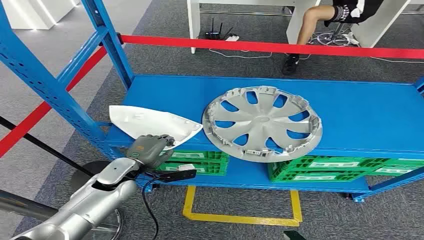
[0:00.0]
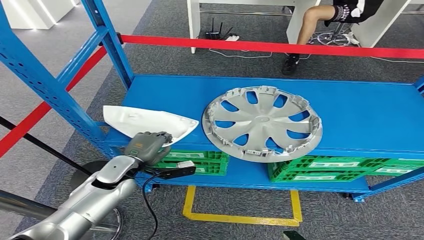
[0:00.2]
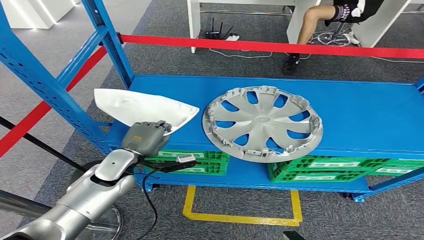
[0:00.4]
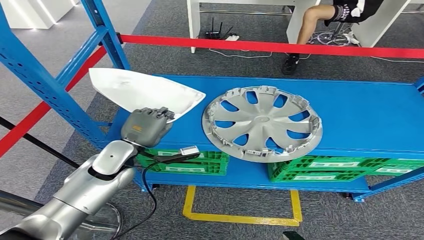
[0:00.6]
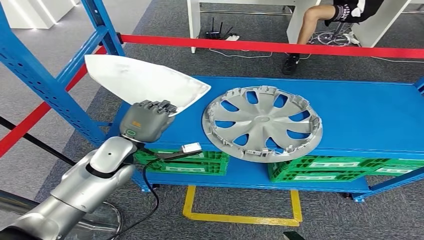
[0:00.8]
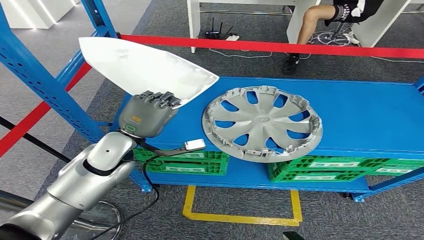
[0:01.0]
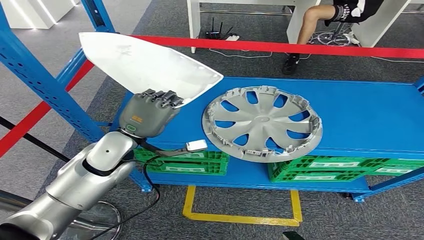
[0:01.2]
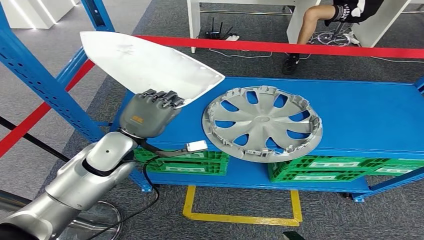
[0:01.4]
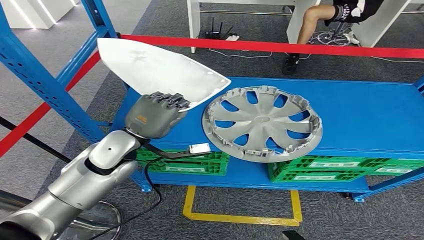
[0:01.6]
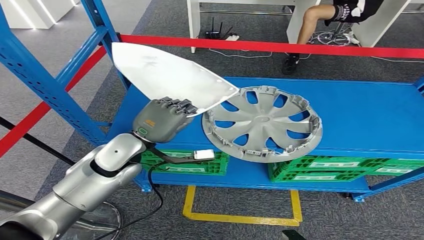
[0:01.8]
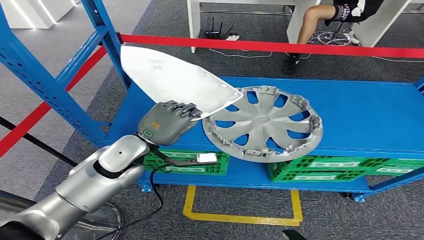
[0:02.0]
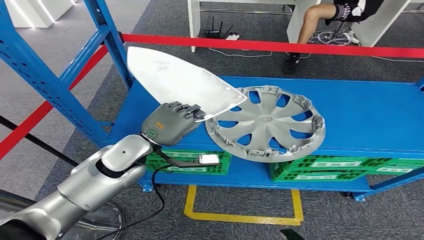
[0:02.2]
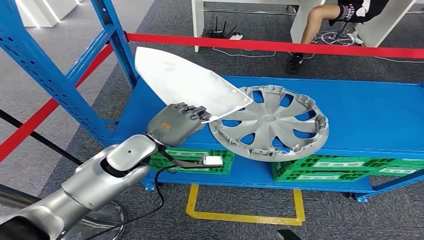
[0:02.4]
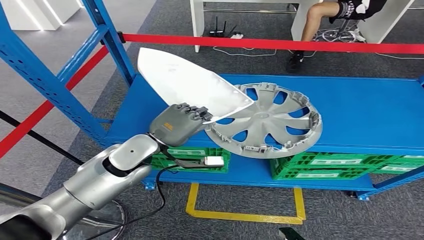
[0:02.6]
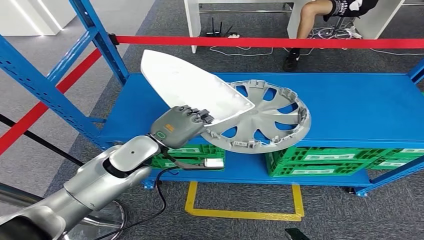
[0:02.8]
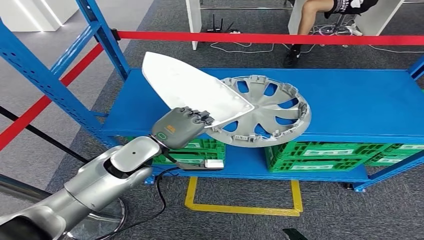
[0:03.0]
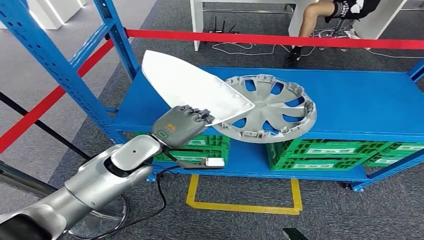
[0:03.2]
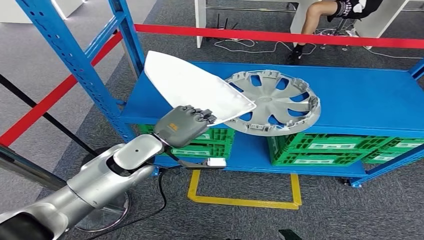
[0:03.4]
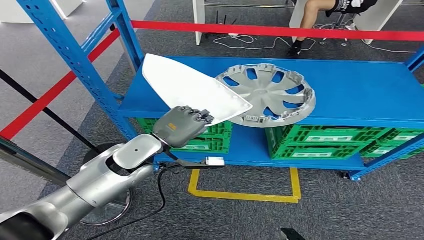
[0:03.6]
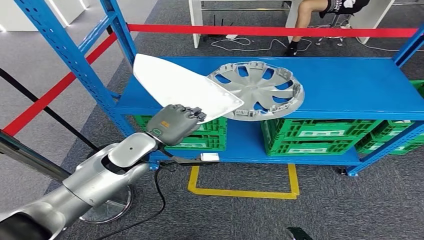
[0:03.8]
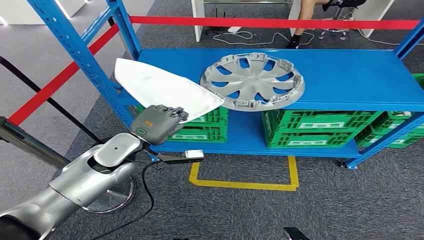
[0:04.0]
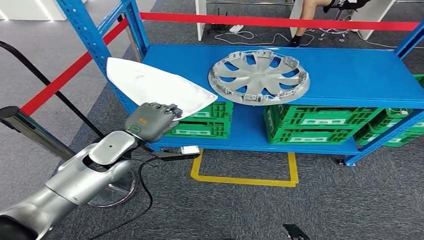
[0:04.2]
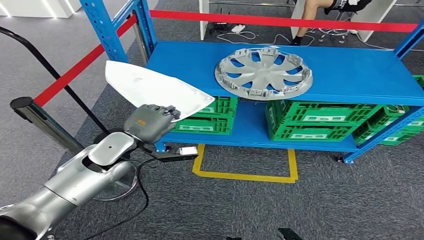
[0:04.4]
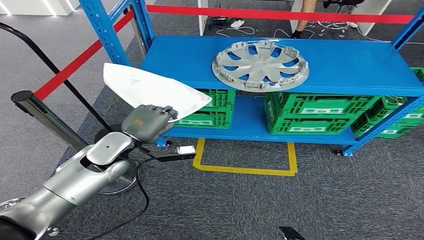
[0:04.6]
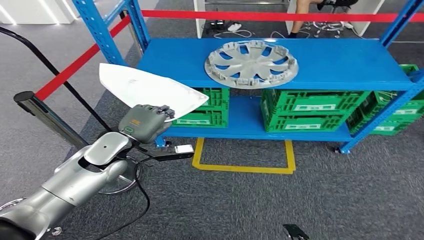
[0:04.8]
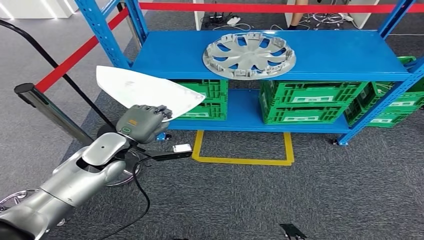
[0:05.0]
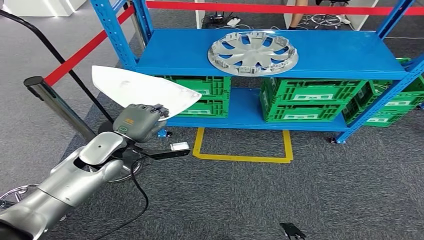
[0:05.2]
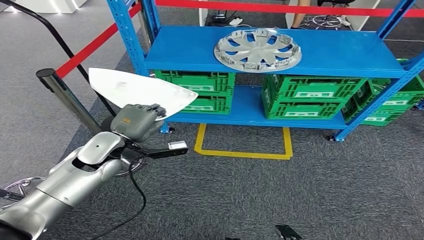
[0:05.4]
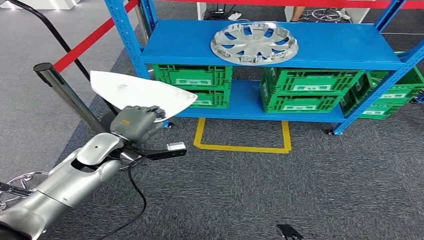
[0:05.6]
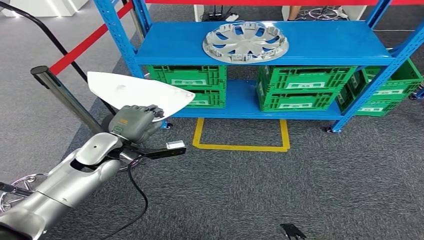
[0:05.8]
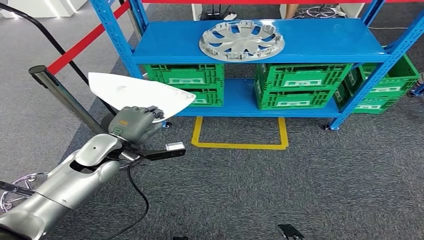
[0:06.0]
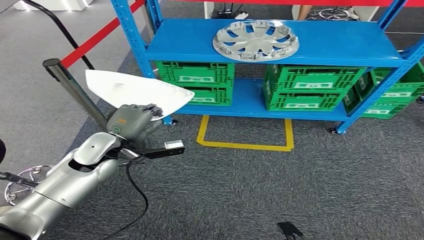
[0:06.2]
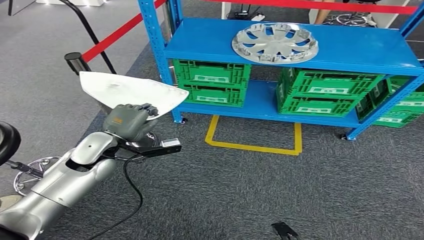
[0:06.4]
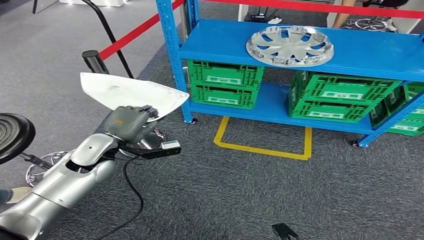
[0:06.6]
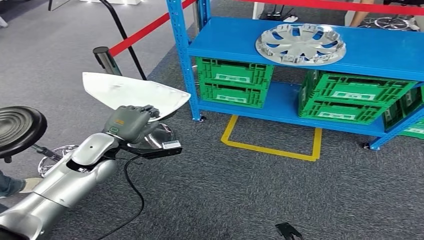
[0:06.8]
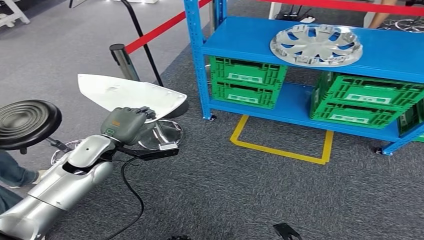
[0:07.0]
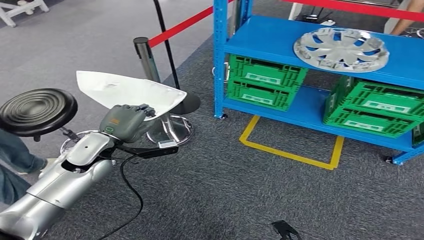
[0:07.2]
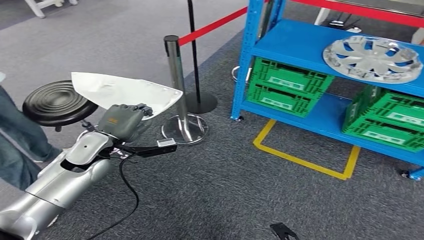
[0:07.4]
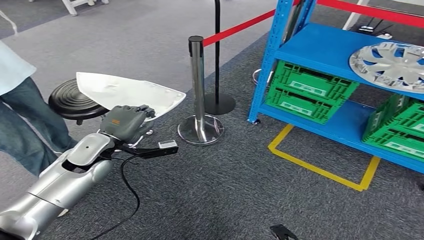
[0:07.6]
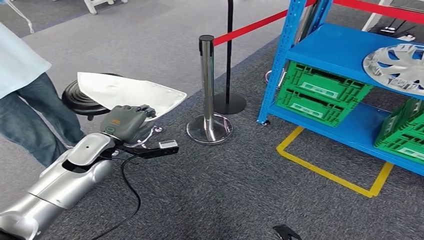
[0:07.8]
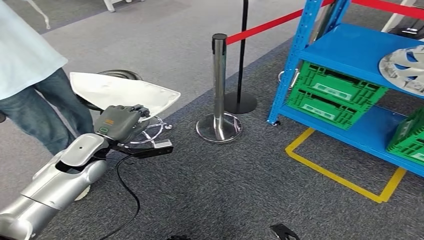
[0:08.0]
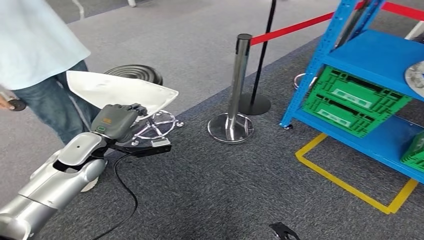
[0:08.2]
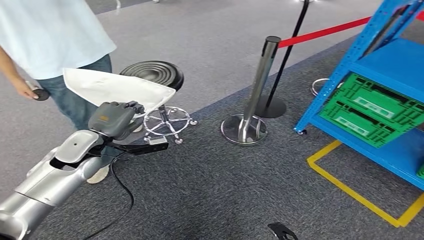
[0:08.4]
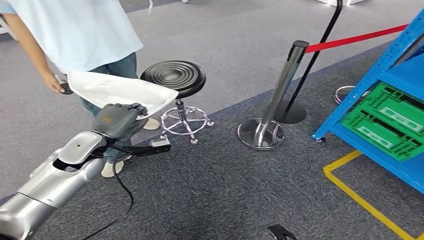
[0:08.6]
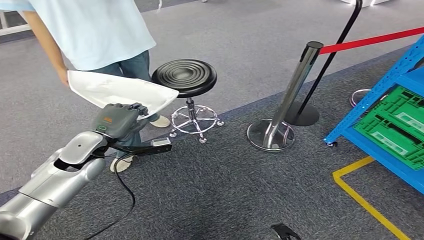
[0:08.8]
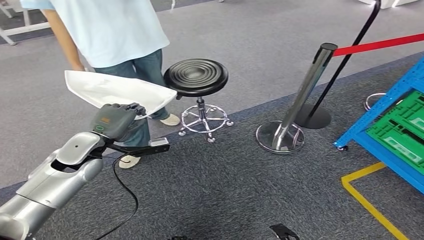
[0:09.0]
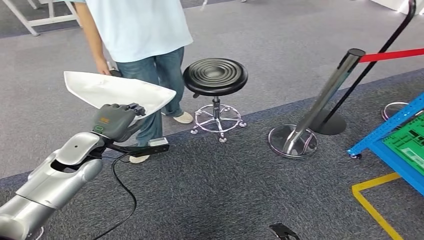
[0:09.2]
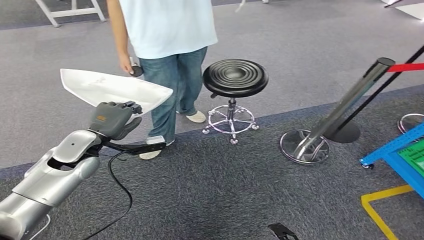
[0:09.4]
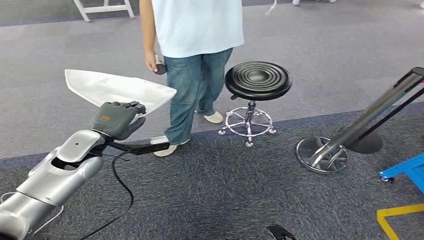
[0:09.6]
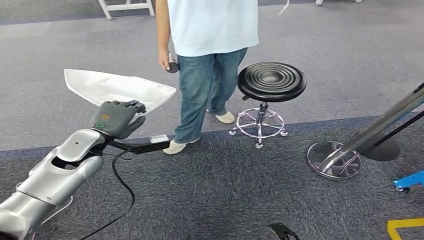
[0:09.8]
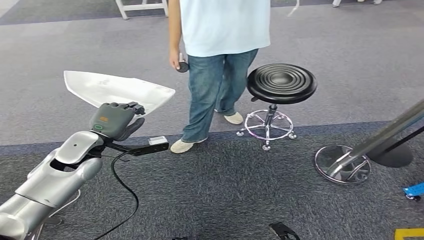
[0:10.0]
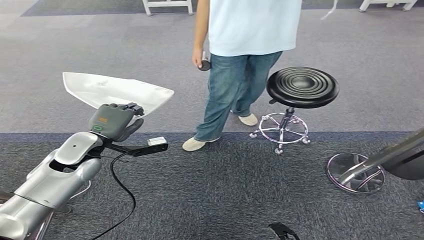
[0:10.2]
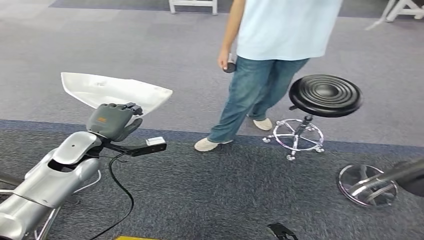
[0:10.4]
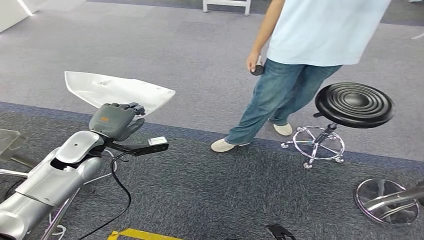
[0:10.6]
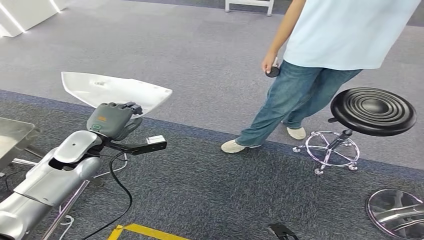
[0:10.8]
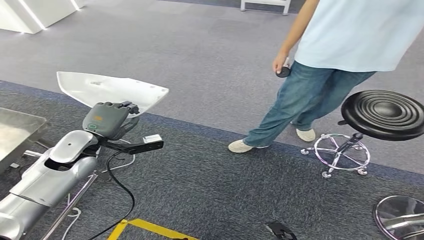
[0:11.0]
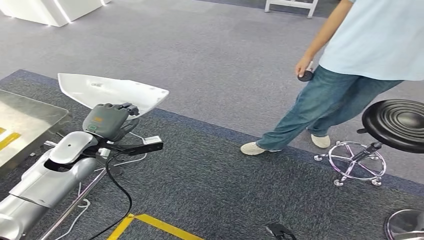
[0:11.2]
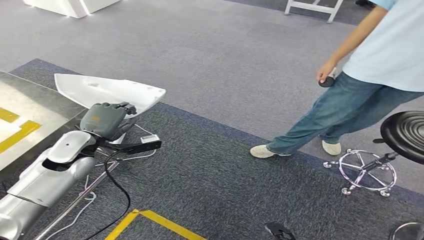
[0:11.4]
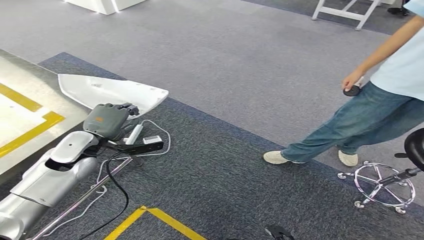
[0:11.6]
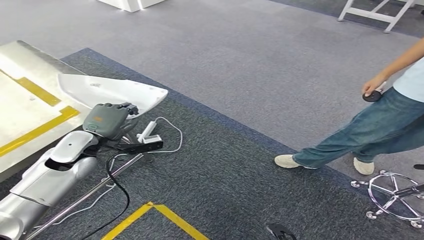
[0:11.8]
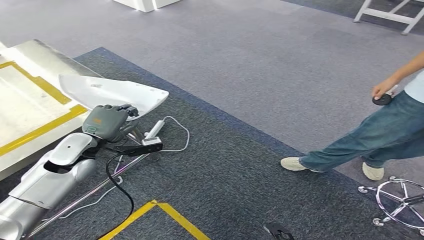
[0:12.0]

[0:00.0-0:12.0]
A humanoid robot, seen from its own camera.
Step, 0:00.0 to 0:03.0: Pick up the small component from the shelf.

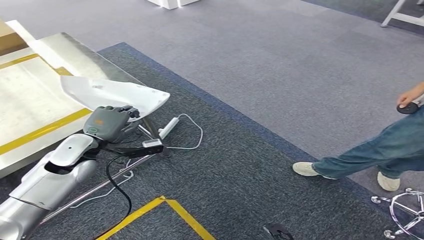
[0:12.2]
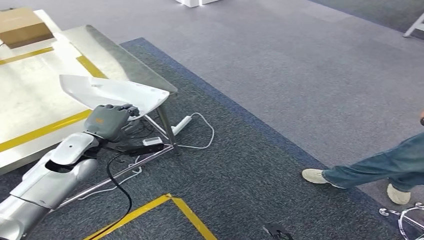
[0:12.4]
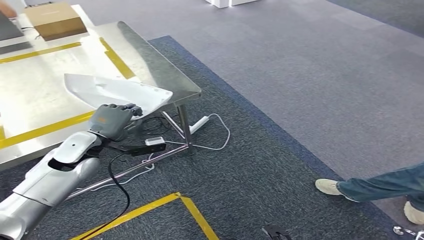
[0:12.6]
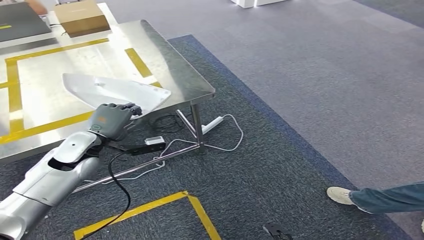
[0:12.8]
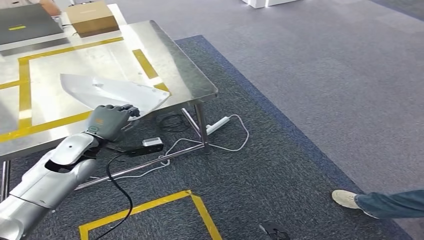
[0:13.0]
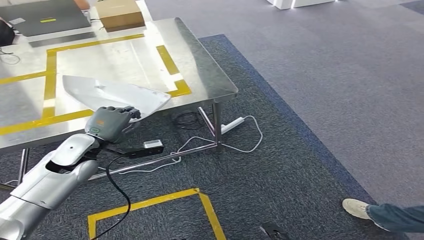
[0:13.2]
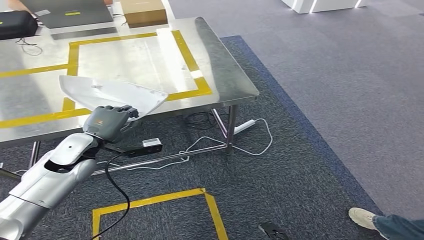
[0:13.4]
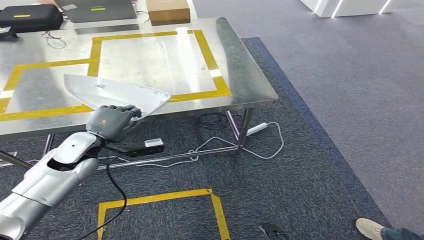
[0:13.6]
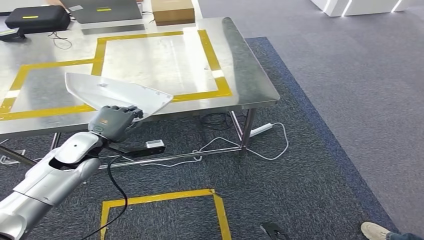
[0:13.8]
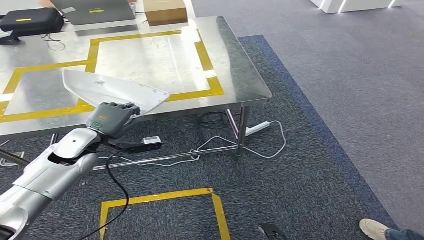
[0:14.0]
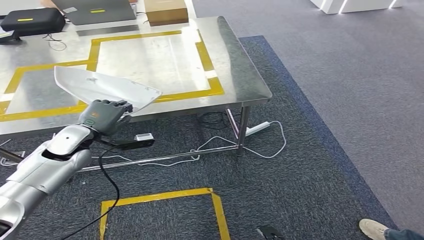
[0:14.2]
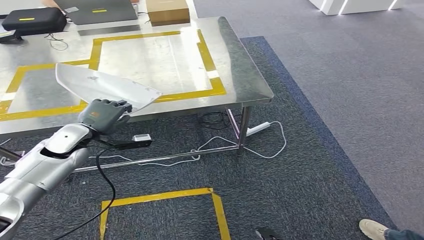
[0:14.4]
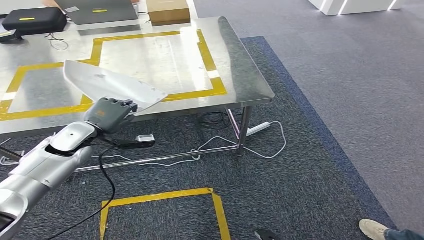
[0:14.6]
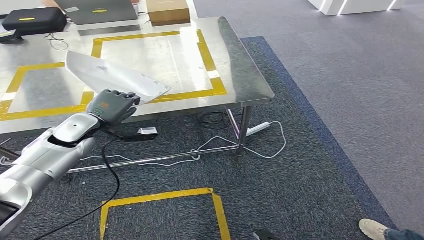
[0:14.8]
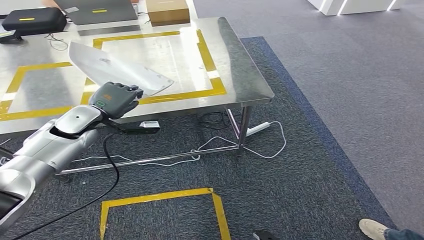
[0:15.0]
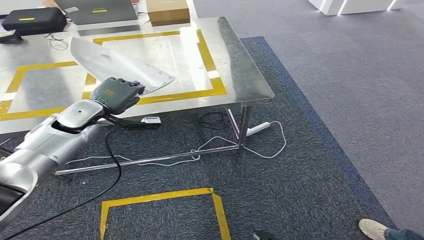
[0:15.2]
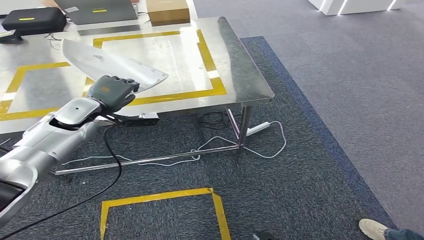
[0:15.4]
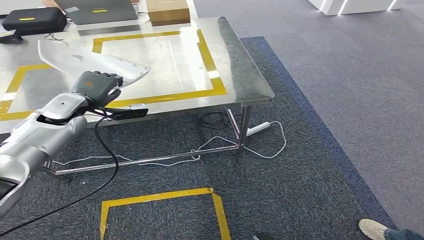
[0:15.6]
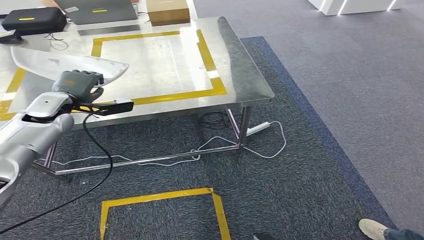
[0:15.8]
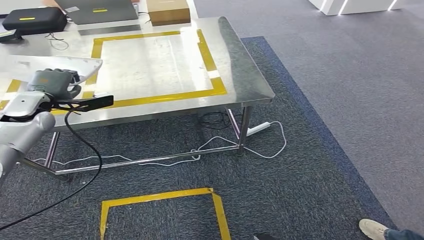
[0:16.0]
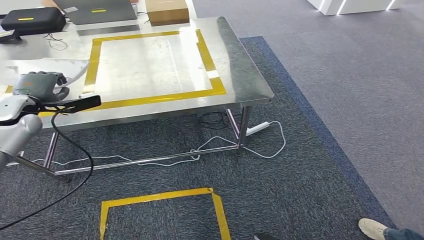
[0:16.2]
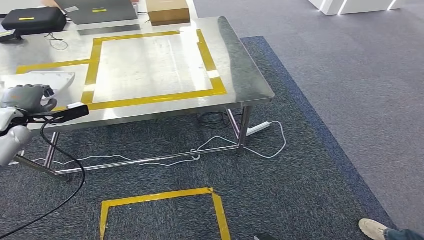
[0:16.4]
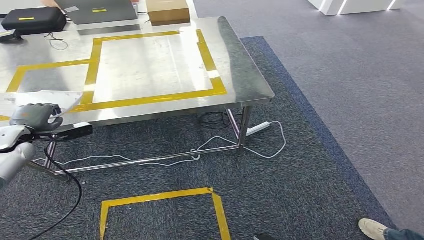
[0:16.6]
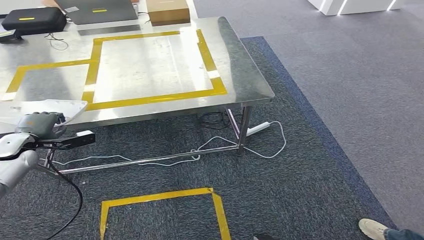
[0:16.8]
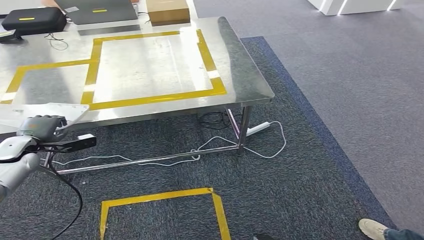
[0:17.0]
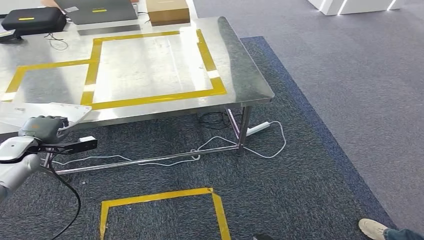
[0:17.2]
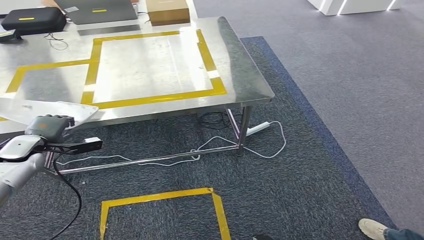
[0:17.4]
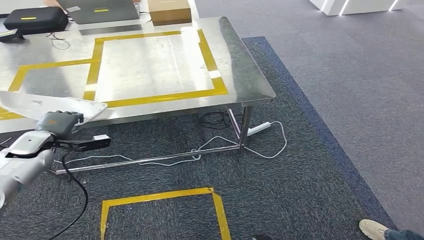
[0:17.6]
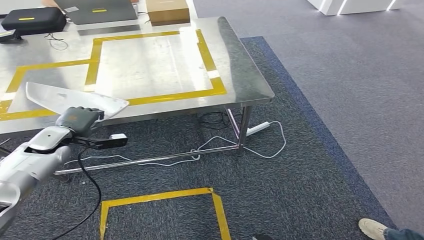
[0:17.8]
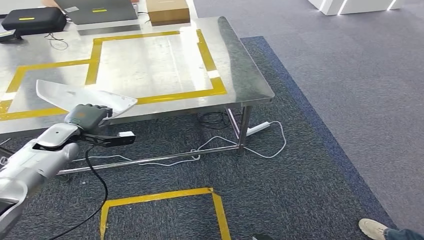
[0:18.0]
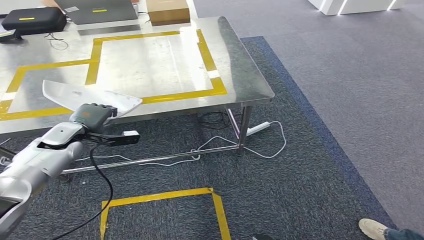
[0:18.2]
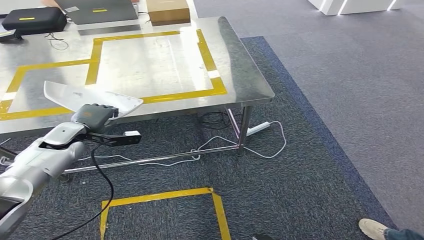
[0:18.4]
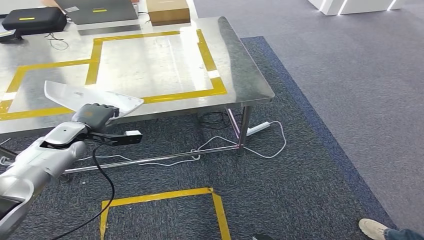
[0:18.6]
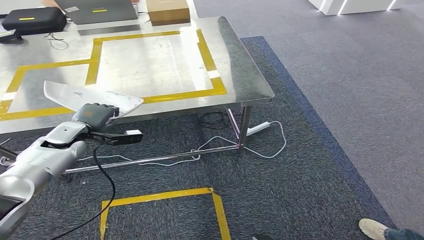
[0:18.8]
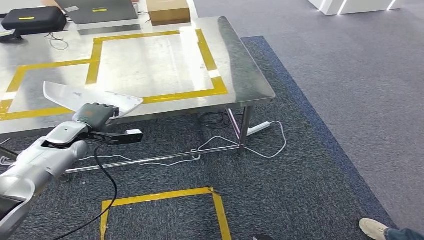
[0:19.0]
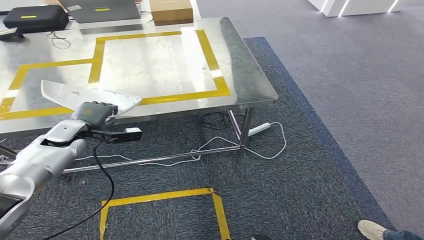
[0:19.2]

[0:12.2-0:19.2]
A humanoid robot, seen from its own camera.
Step, 0:12.2 to 0:15.2: Move the small component to the workbench.
0:15.0 to 0:16.4: The left hand heads to the left, covering roughly 15 cm.
0:16.4 to 0:17.8: The left hand goes some 10 cm to the right and downward.
0:17.8 to 0:19.2: The left hand changes place by some 5 cm.
